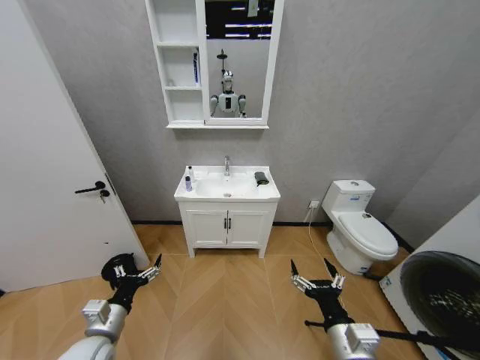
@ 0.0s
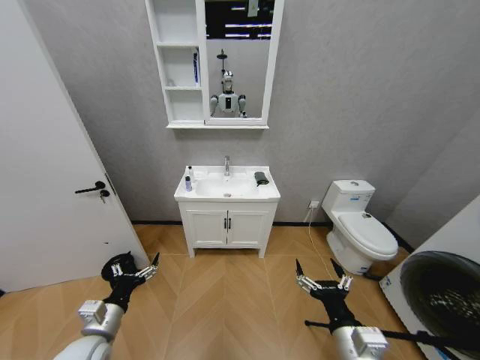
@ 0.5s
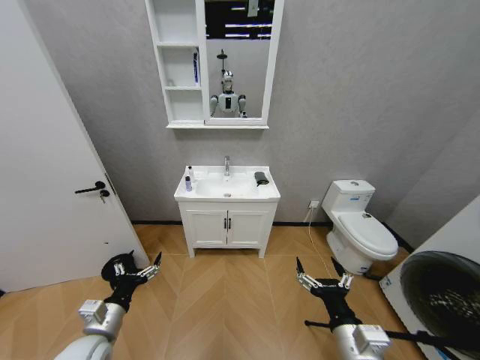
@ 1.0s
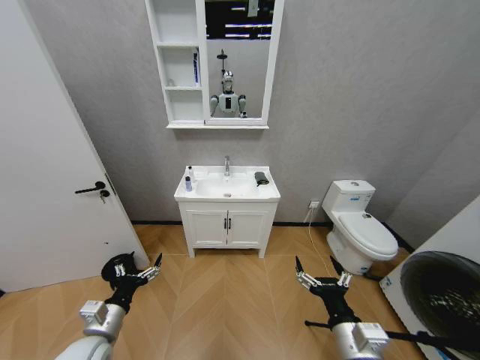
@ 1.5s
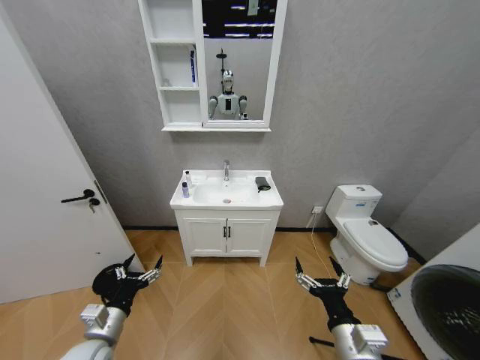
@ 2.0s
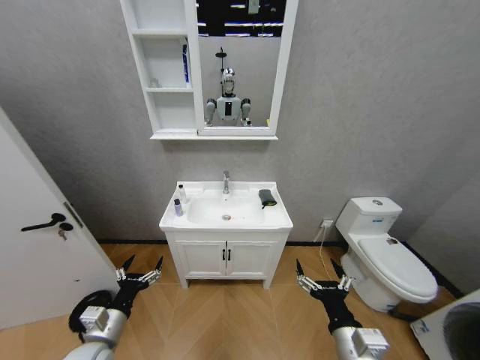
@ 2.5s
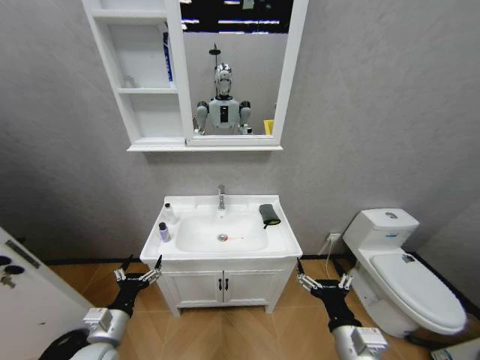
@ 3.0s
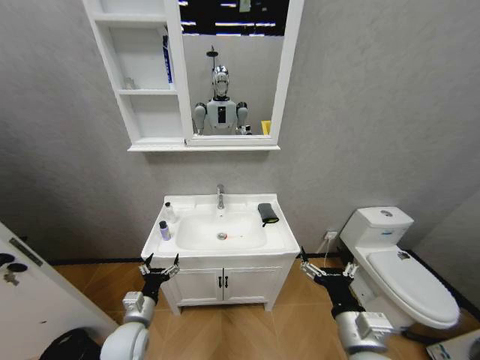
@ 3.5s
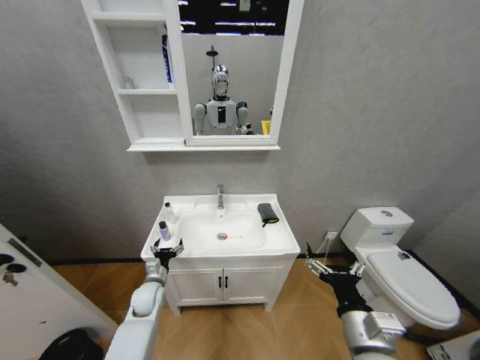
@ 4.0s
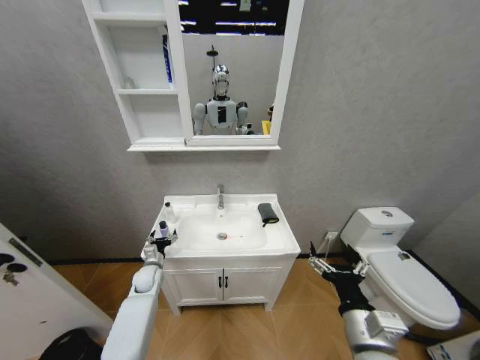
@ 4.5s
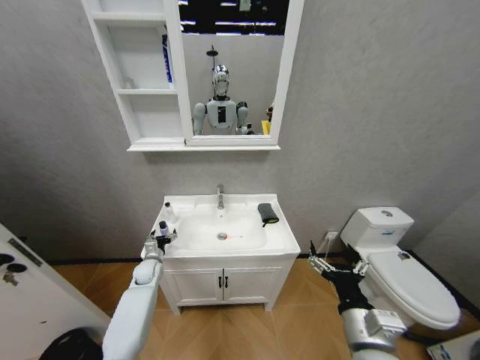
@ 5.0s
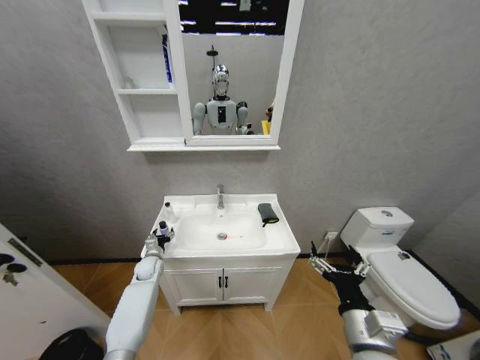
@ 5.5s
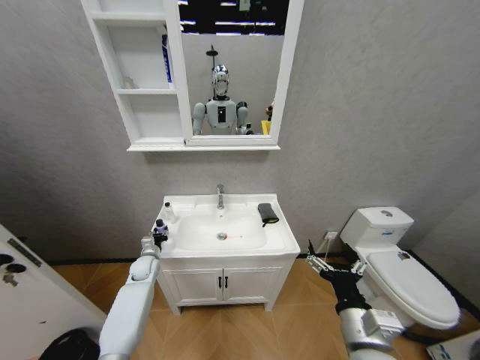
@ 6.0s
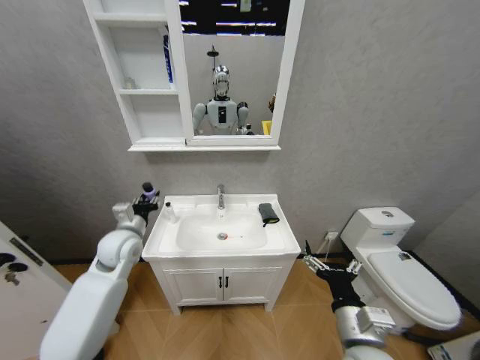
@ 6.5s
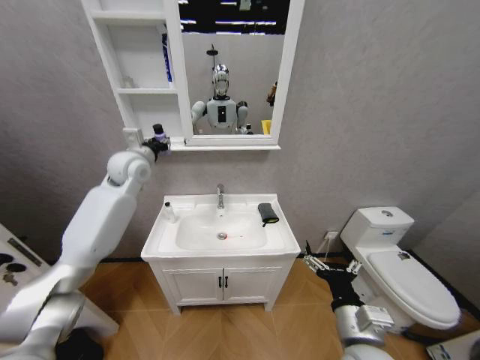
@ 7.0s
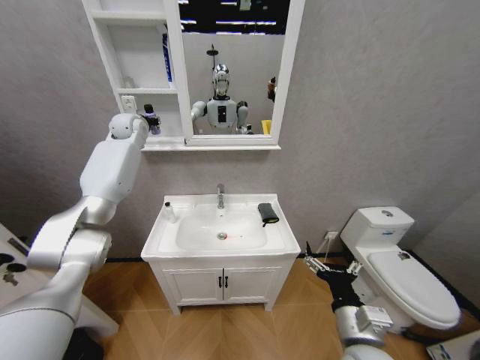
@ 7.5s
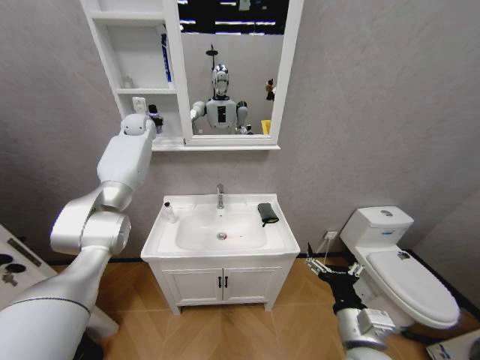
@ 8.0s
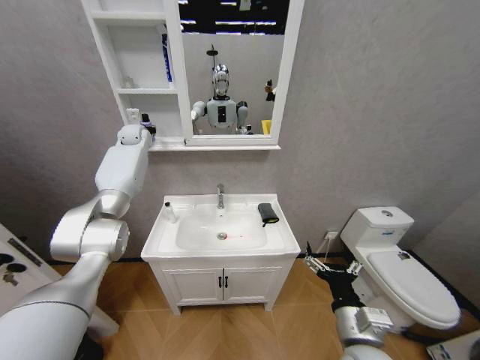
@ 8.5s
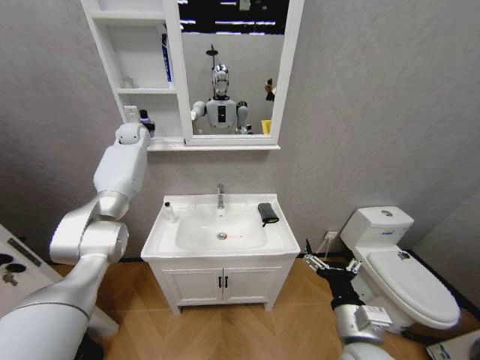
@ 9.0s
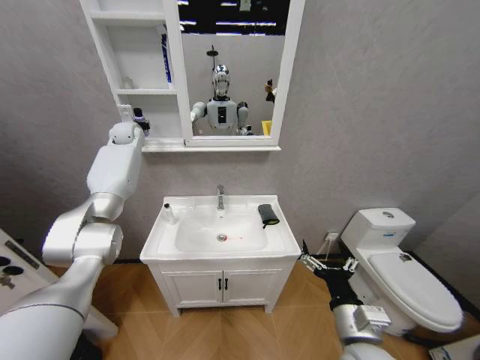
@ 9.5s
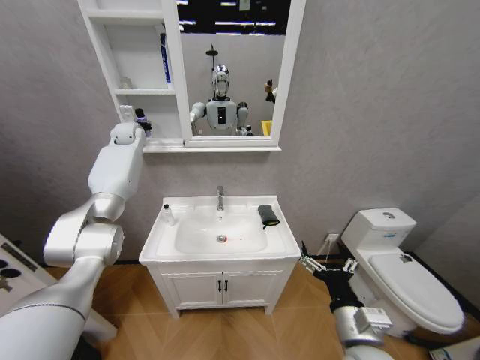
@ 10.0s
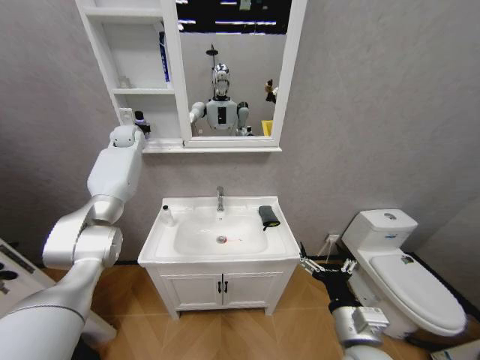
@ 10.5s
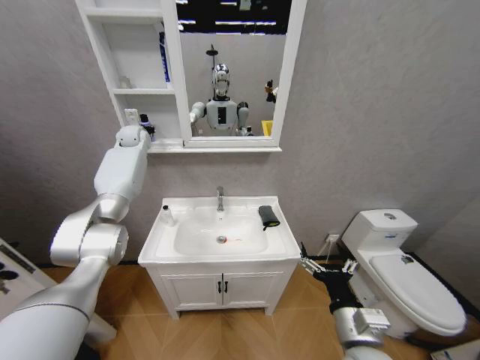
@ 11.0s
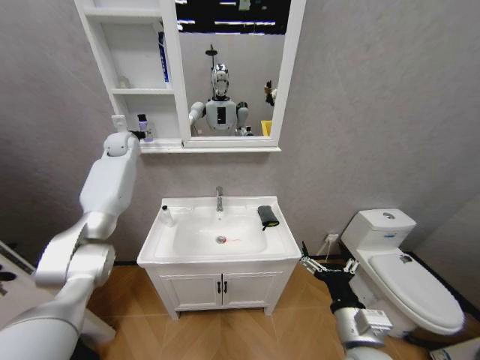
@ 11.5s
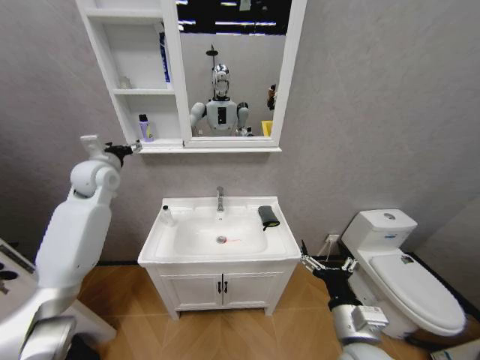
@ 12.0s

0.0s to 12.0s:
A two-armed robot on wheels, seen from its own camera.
Task of the whole recording: Move facial cleanser and shampoo from washbasin to cabinet, then wipe washbasin with towel.
2.0s to 4.0s: The left gripper goes some 20 cm forward and downward.
4.0s to 6.0s: The left gripper is displaced forward and to the left by about 10 cm, and closes its fingers.
6.0s to 8.0s: The left gripper travels upward and forward by some 50 cm.
8.0s to 10.0s: There are only small adjustments of the grippers.
10.0s to 12.0s: The left gripper goes roughly 20 cm backward, and opens its fingers.

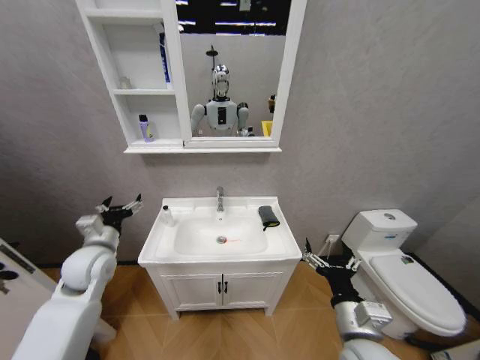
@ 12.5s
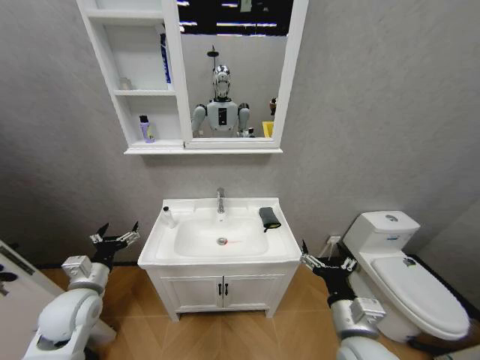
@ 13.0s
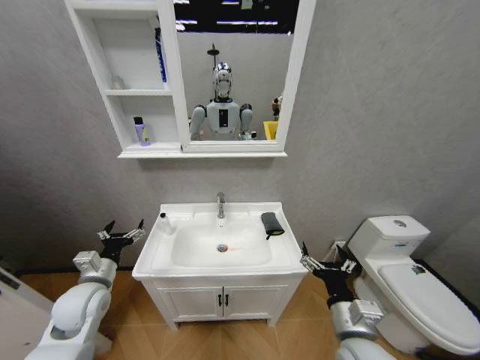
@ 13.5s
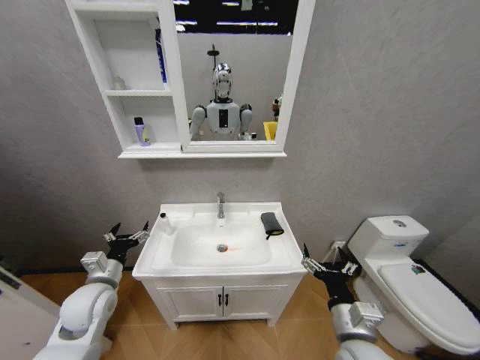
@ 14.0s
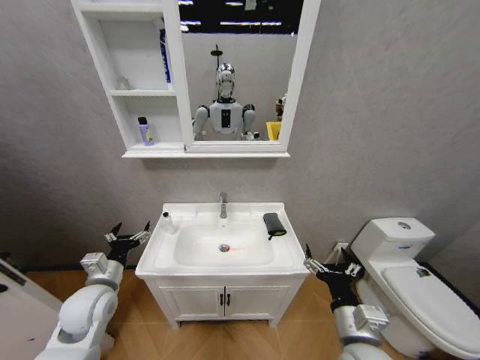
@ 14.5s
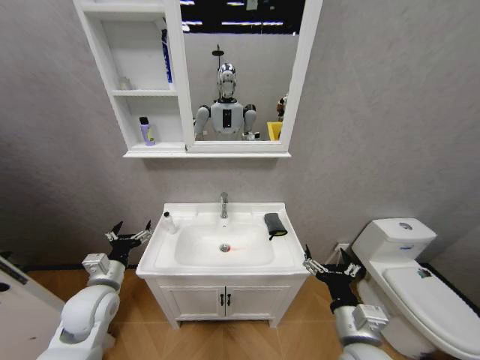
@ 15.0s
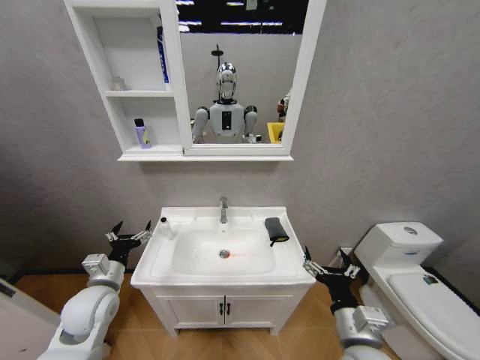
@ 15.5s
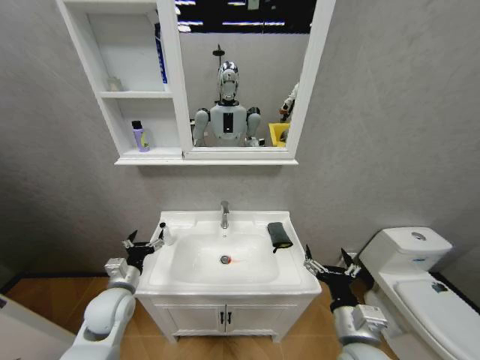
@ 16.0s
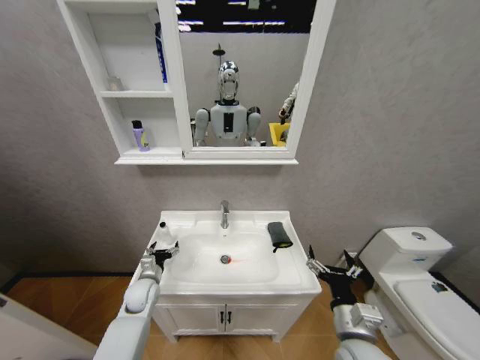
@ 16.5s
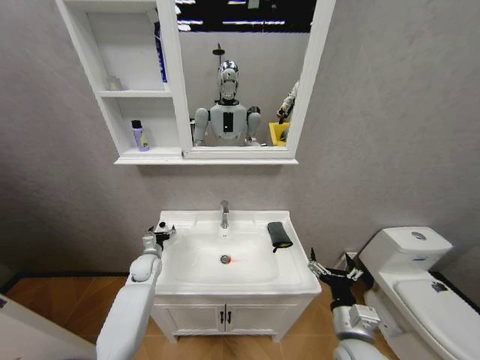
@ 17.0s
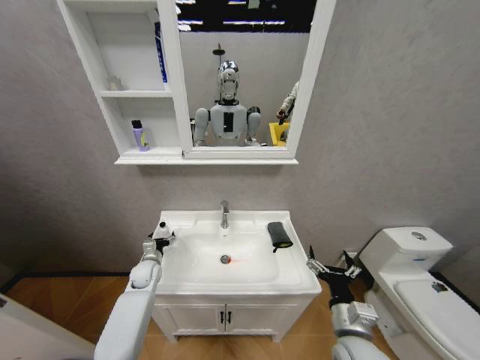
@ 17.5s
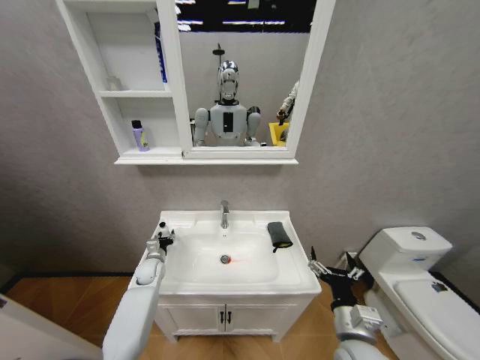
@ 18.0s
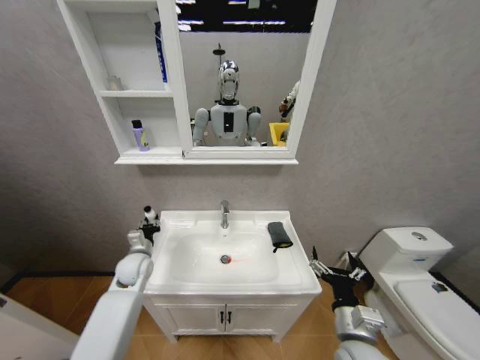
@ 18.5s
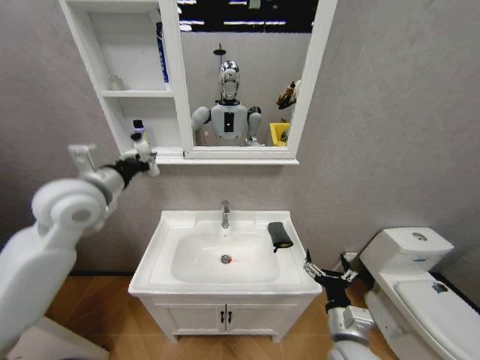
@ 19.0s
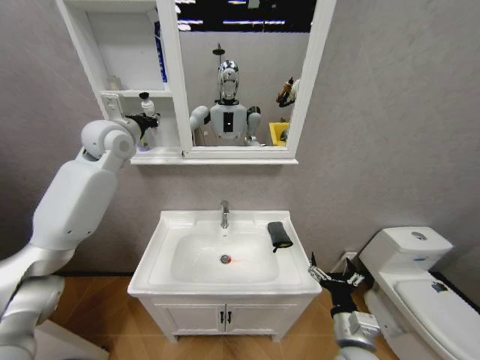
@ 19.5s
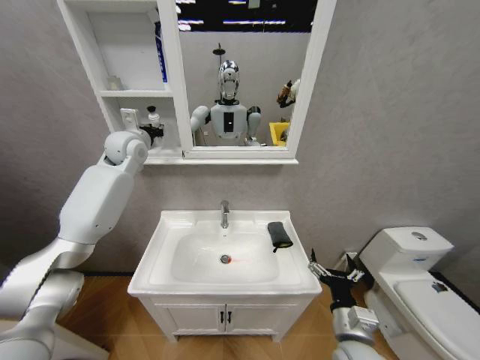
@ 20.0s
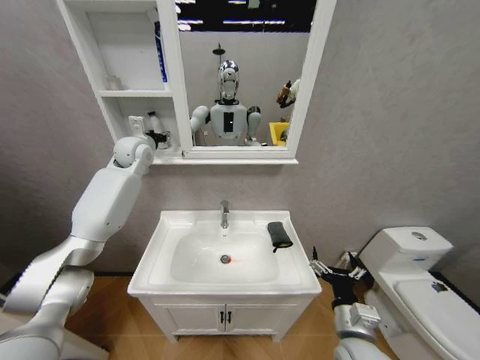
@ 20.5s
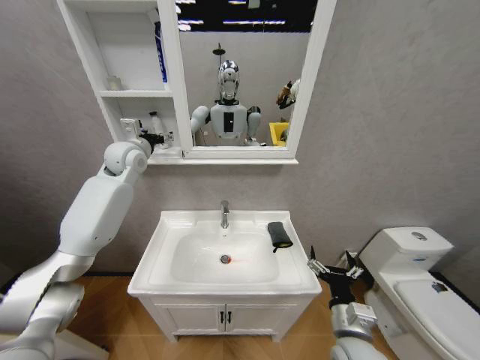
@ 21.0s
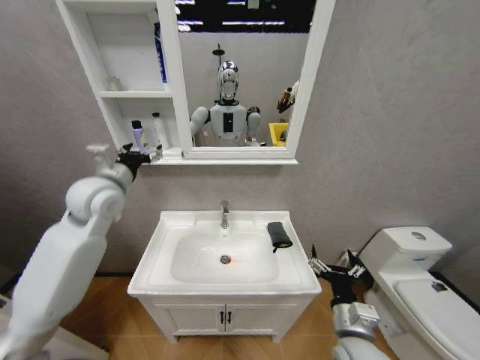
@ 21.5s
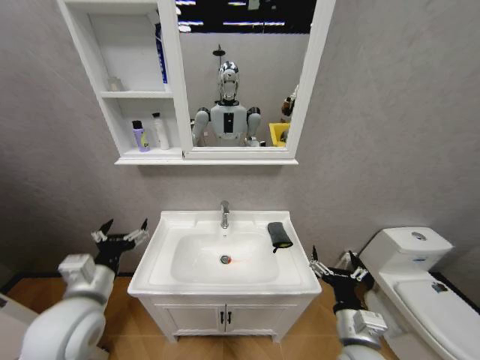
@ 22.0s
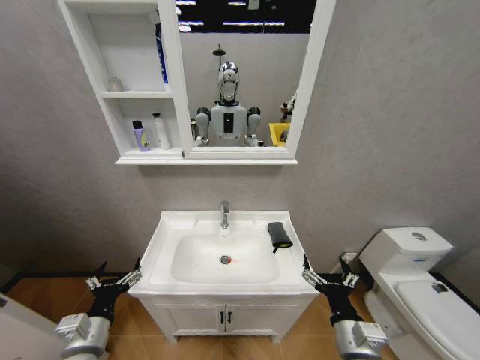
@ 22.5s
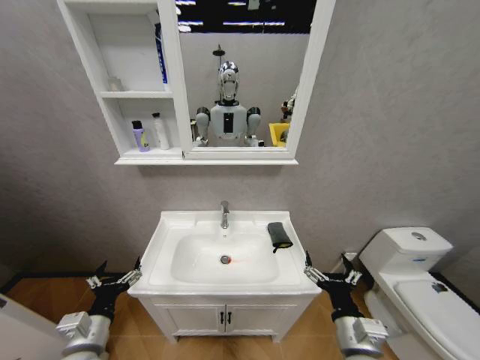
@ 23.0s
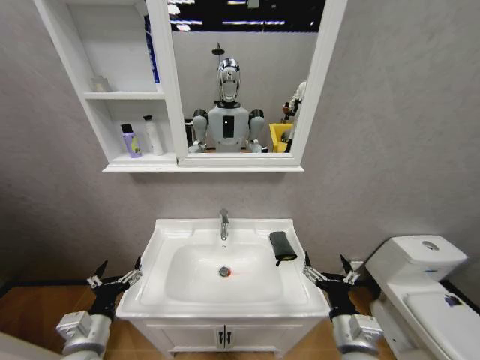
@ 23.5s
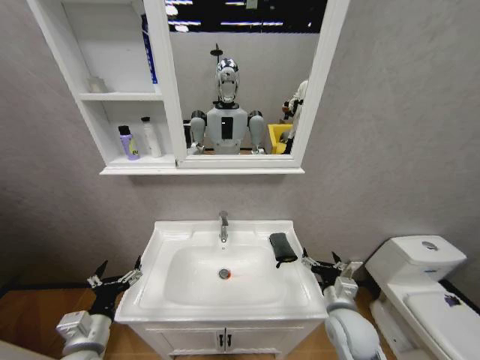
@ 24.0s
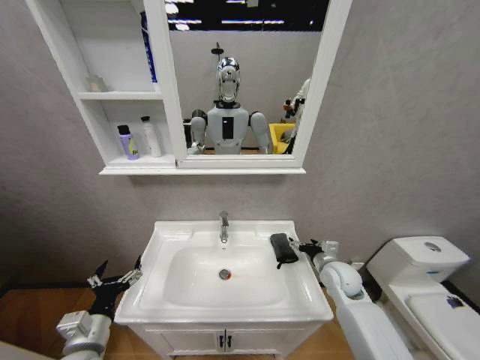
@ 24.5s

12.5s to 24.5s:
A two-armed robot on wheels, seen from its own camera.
Task of the whole recording: Move facial cleanser and shampoo from washbasin to cabinet, then wipe washbasin with towel.
12.5s to 14.5s: The left gripper is displaced downward and backward by about 10 cm.
14.5s to 16.5s: The left gripper is displaced downward and forward by approximately 15 cm.
16.5s to 18.5s: The left gripper goes some 10 cm upward and forward, and closes.
18.5s to 20.5s: The left gripper travels upward and forward by about 40 cm, and opens up.
20.5s to 22.5s: The left gripper moves backward and downward, about 50 cm, and opens.
22.5s to 24.5s: The right gripper goes roughly 20 cm forward.

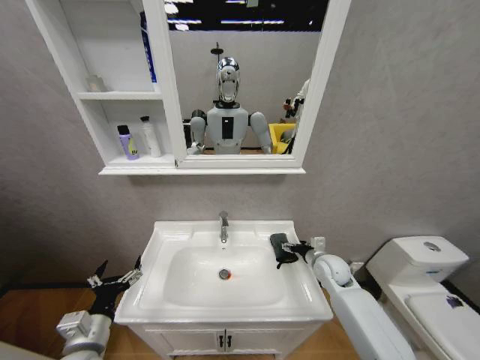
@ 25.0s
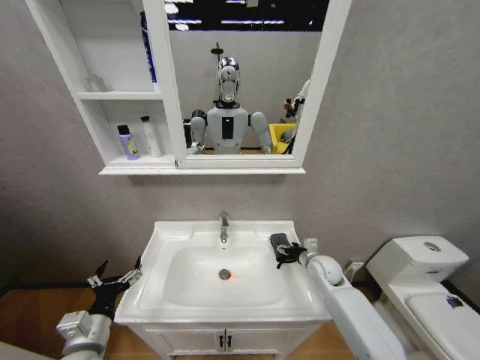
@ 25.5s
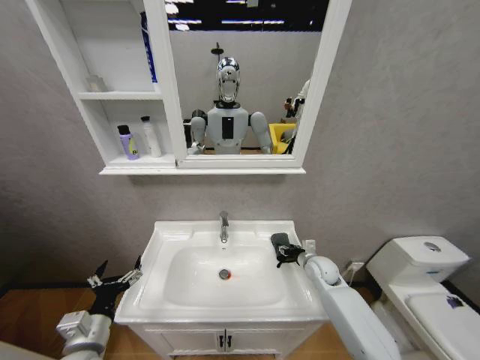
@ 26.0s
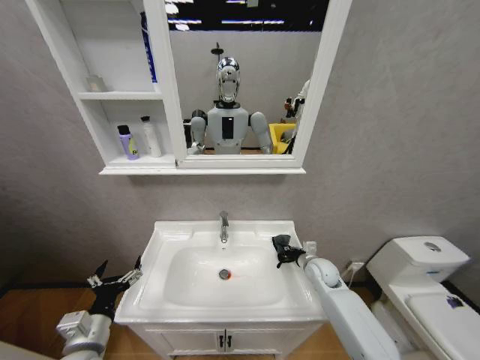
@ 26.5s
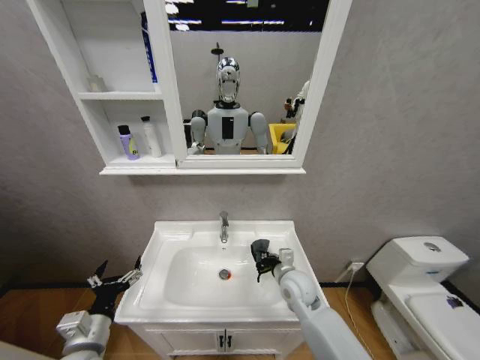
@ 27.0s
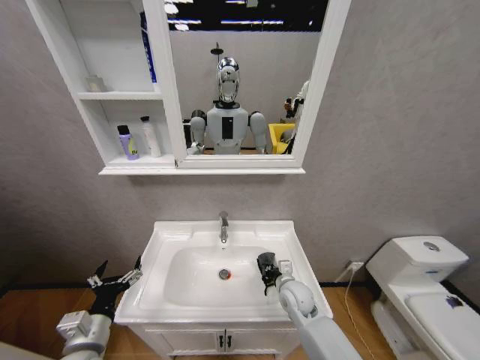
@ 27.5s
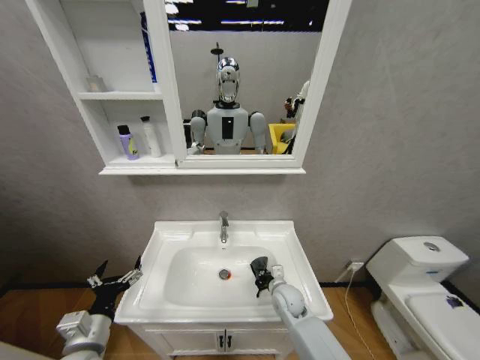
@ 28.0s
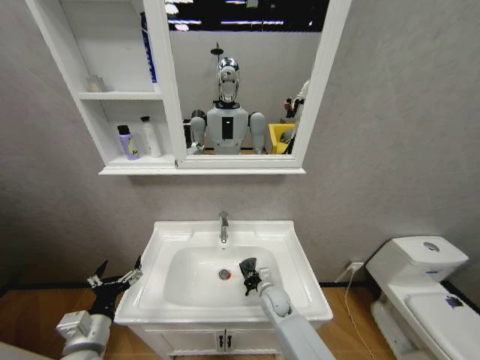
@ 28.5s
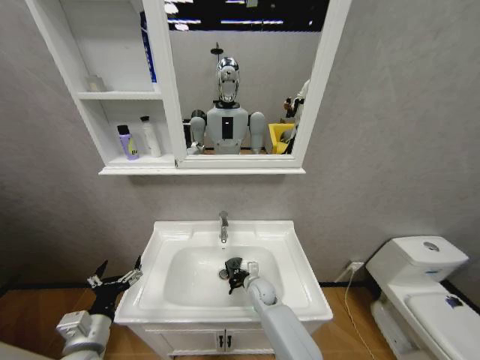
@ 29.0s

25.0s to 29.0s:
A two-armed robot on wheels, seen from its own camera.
Task of the whole recording: Move facial cleanser and shampoo from washbasin to cabinet, then wipe washbasin with towel.
25.0s to 27.0s: The right gripper shifts about 15 cm to the left and backward, and closes up.
27.0s to 29.0s: The right gripper travels downward and to the left by some 15 cm.
